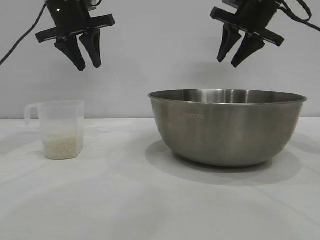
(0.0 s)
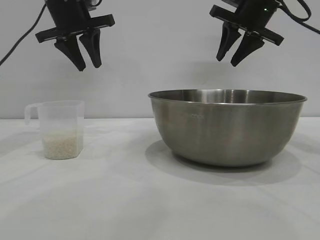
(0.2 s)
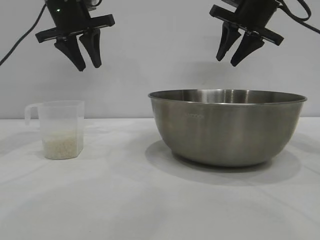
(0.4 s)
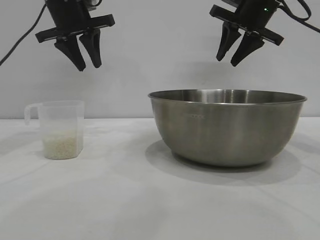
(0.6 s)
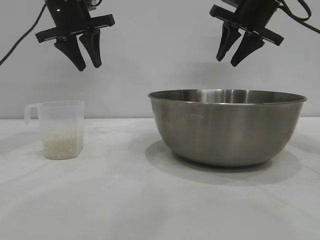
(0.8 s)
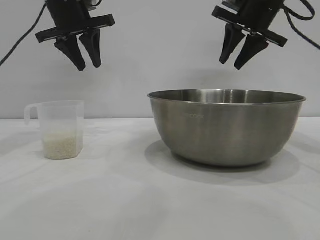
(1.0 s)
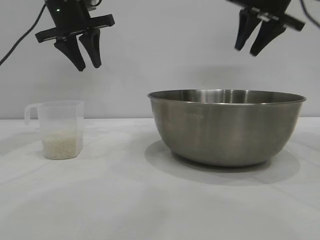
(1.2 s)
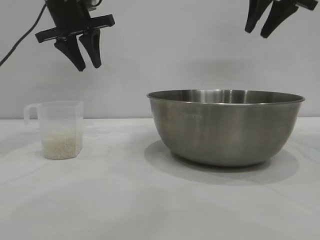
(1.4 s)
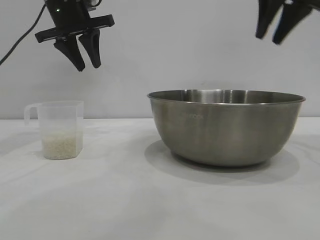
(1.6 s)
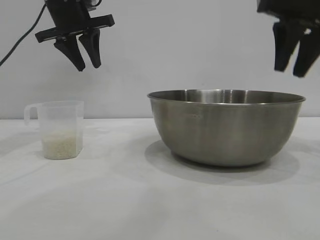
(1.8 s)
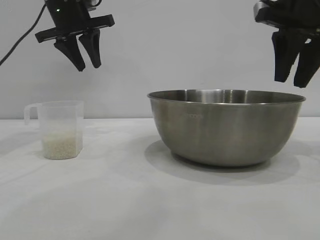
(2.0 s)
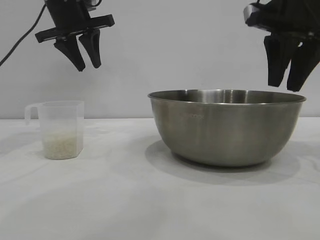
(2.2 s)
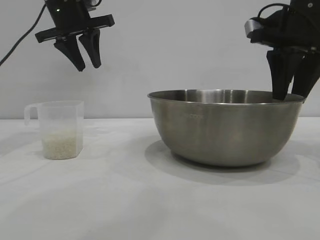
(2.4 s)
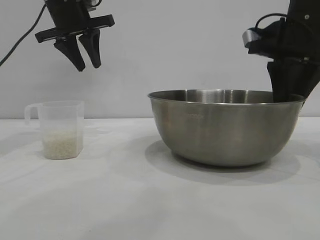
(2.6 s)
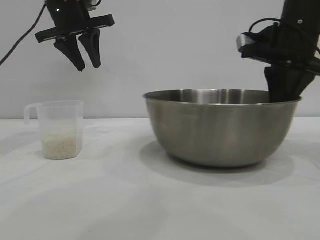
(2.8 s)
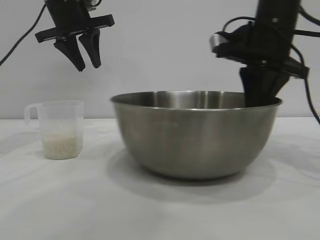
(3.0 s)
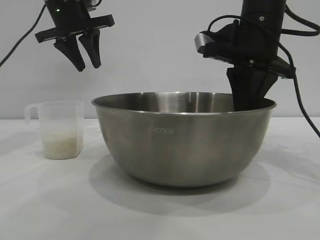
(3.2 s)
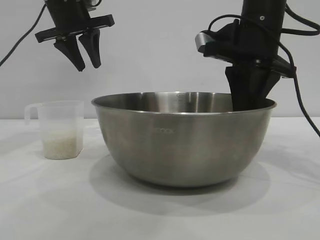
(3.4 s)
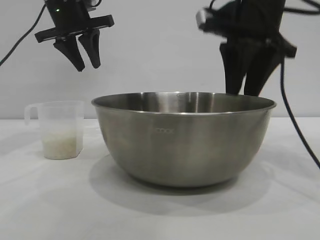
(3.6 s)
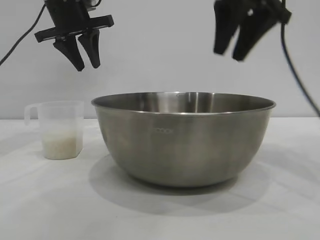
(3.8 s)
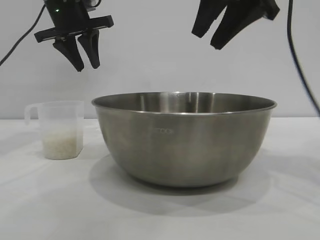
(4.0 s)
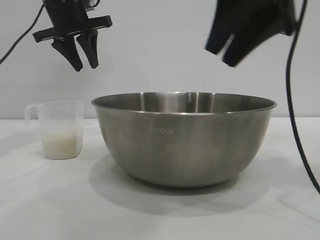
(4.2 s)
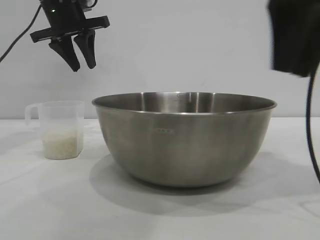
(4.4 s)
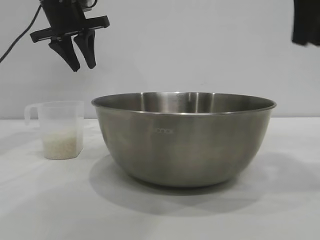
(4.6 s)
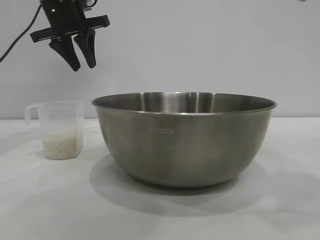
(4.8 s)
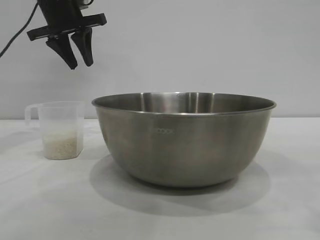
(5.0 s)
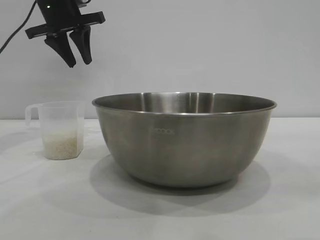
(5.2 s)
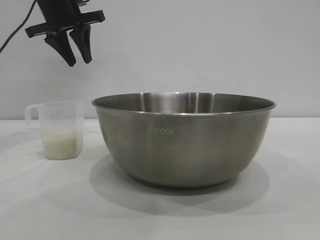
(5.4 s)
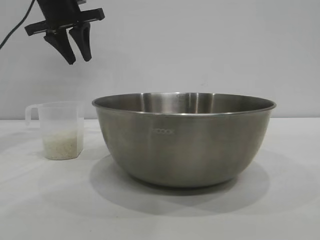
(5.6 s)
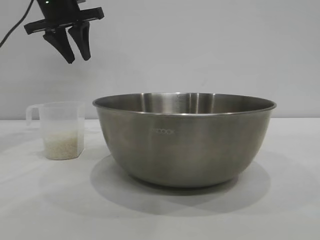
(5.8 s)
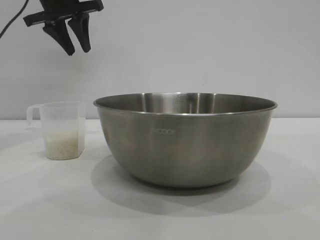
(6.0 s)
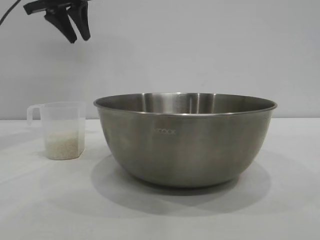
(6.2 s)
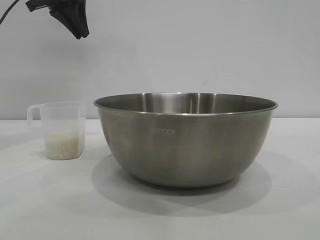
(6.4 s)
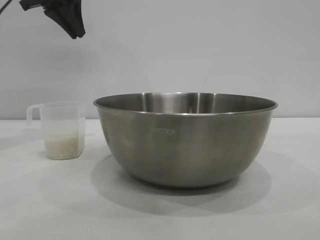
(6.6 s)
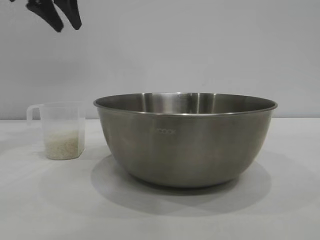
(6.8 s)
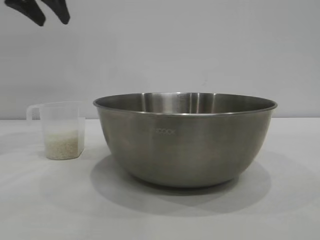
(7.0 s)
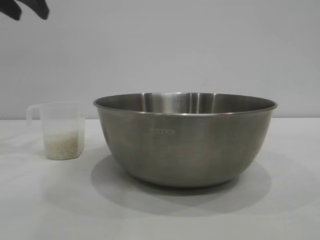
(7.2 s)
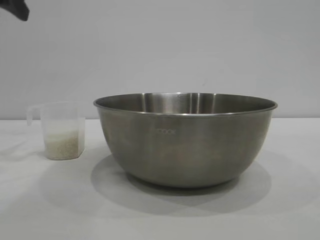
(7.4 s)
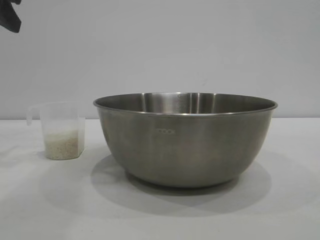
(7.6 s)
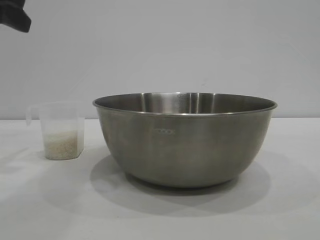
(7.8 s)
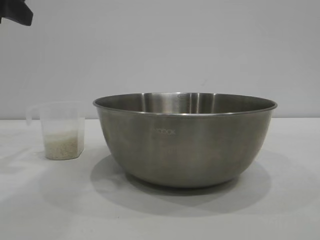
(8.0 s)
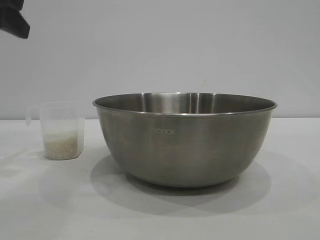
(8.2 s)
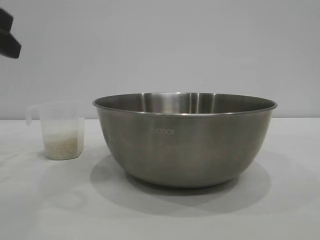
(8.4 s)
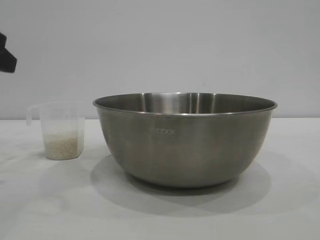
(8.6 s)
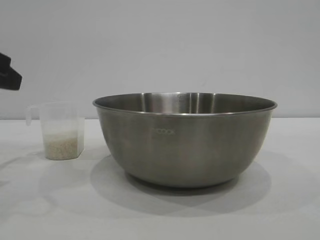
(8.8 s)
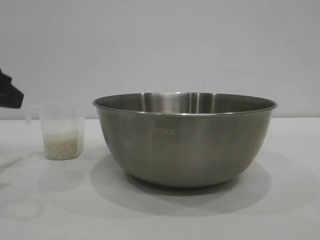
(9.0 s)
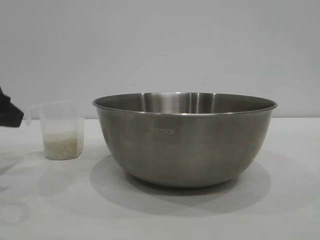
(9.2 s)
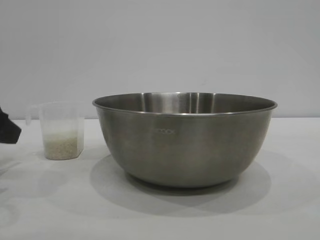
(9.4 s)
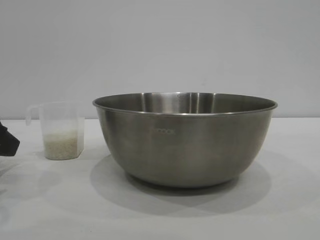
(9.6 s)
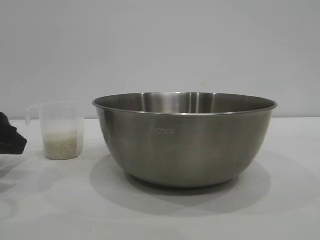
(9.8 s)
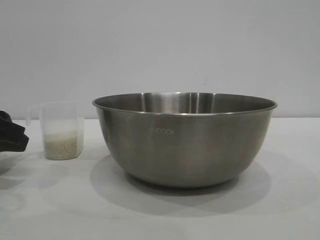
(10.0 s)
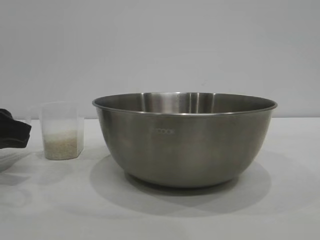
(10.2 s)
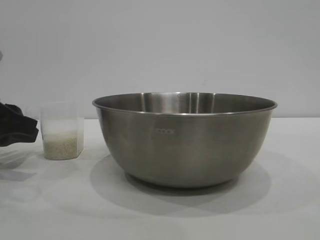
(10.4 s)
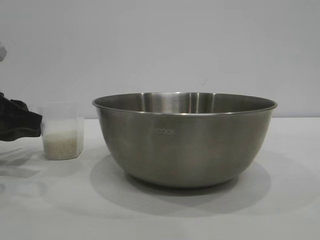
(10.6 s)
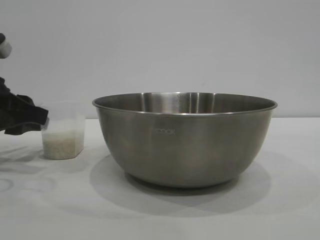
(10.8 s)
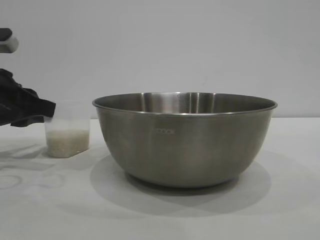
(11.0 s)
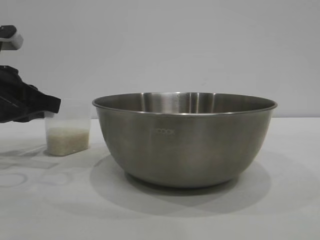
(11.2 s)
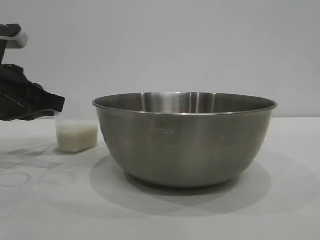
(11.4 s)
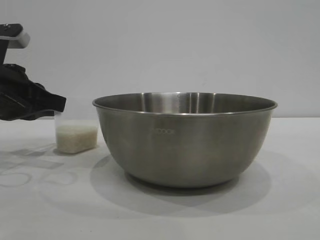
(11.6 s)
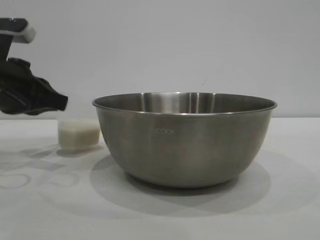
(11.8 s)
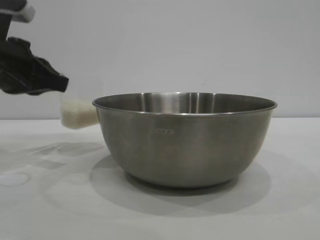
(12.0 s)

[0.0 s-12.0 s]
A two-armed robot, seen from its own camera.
Task of the whole recording: the right gripper grasp the rice container and place it in the center of the table, the left gripper grasp the rice scoop and pour the rice into the rice container.
Step, 0.0 to 3.6 s: Move the bowl to the center of view with the right gripper.

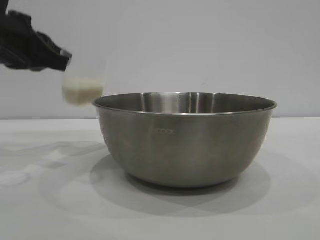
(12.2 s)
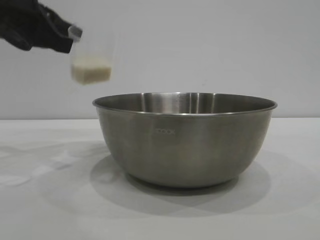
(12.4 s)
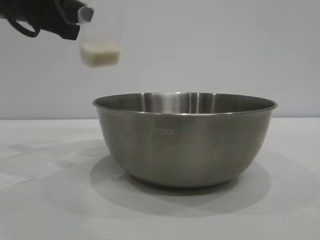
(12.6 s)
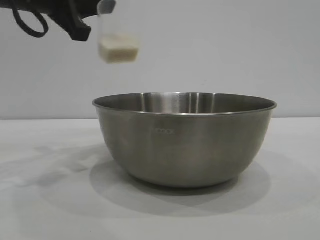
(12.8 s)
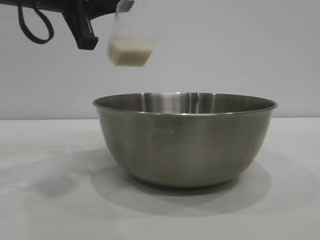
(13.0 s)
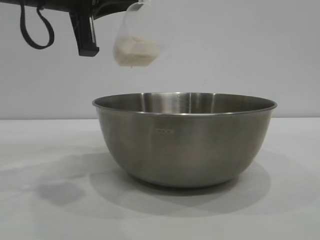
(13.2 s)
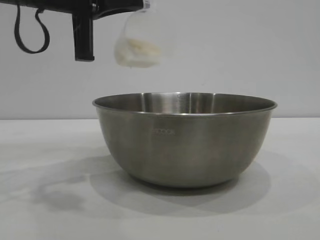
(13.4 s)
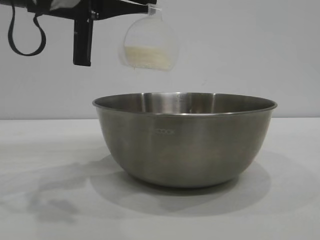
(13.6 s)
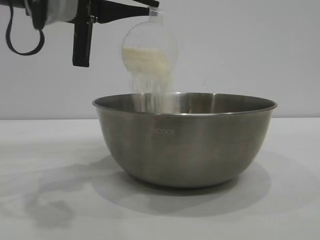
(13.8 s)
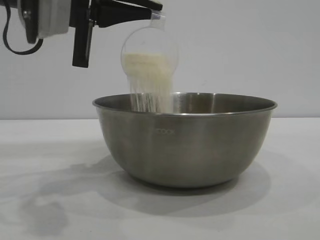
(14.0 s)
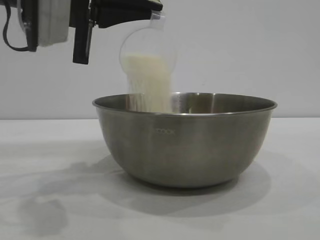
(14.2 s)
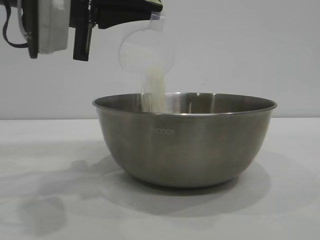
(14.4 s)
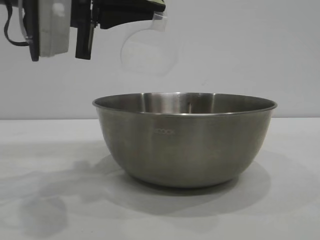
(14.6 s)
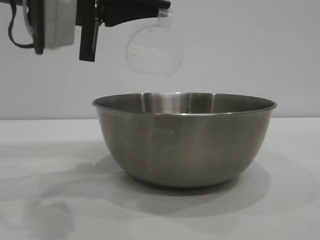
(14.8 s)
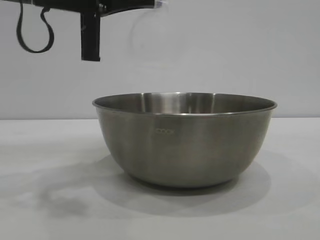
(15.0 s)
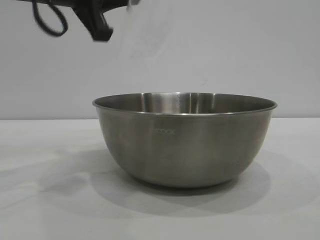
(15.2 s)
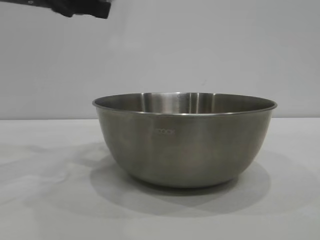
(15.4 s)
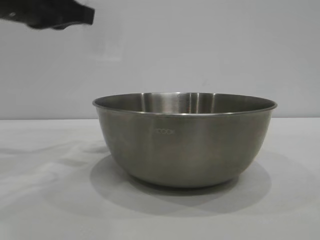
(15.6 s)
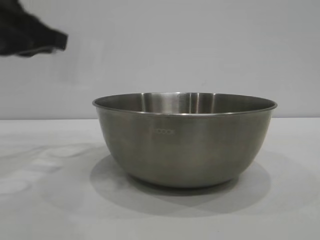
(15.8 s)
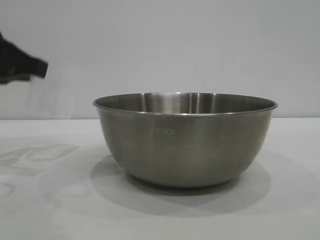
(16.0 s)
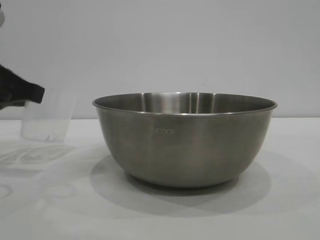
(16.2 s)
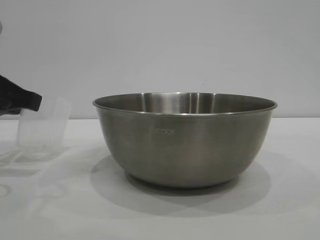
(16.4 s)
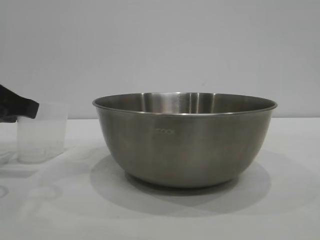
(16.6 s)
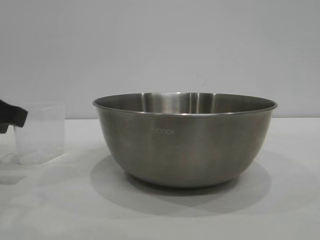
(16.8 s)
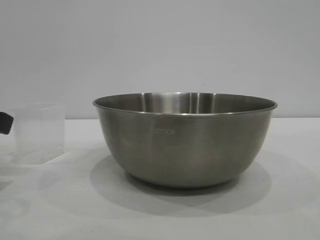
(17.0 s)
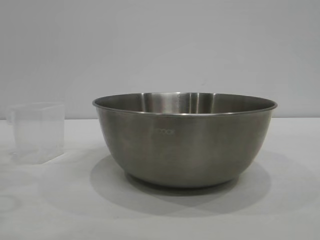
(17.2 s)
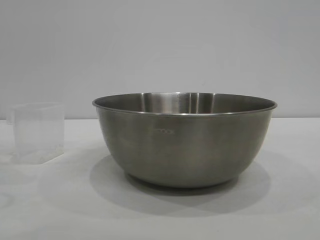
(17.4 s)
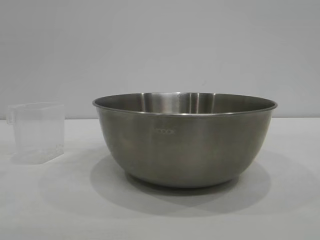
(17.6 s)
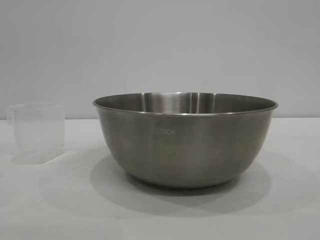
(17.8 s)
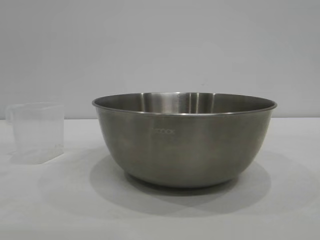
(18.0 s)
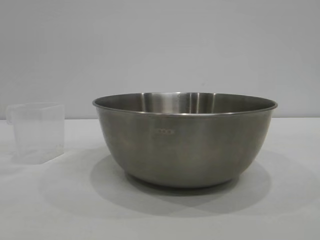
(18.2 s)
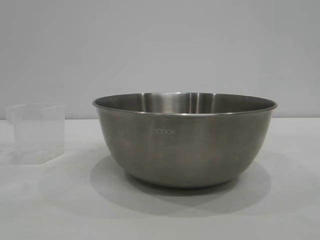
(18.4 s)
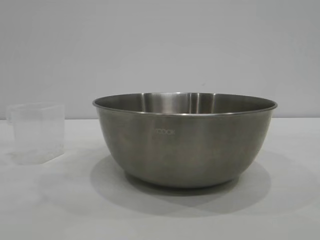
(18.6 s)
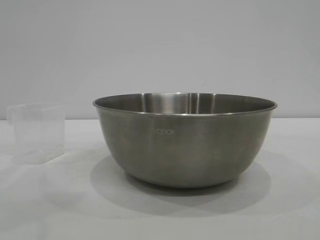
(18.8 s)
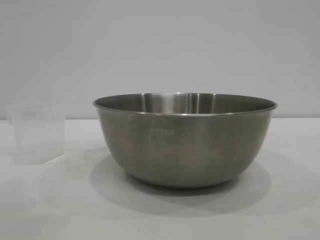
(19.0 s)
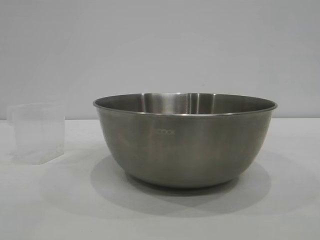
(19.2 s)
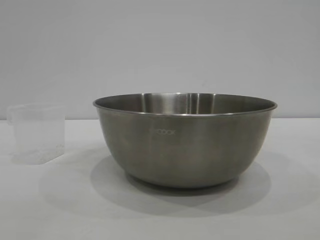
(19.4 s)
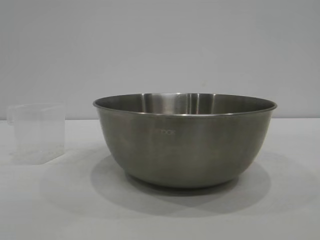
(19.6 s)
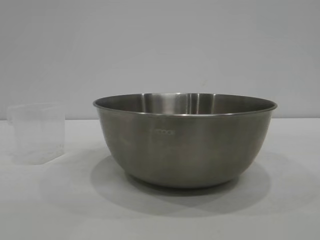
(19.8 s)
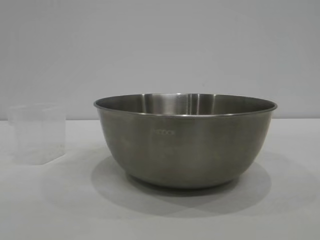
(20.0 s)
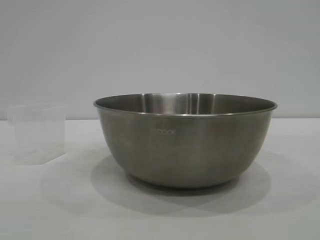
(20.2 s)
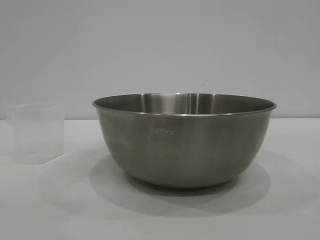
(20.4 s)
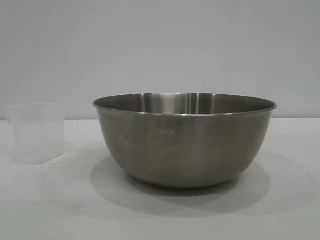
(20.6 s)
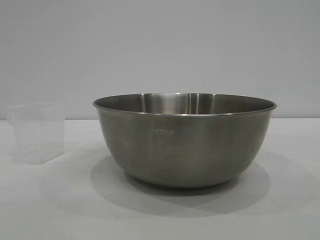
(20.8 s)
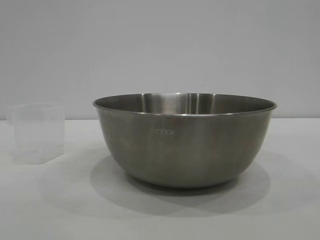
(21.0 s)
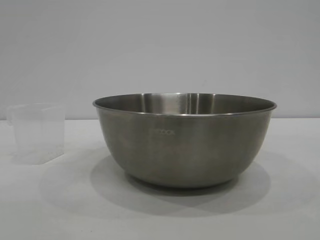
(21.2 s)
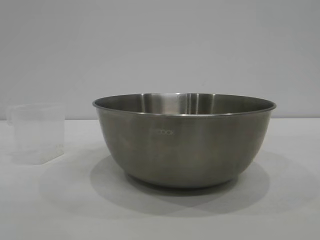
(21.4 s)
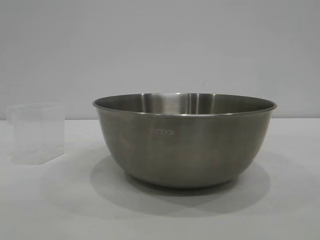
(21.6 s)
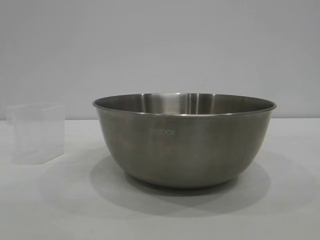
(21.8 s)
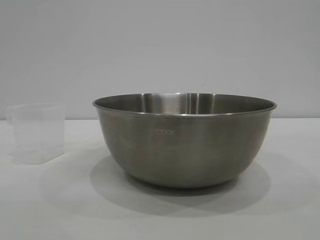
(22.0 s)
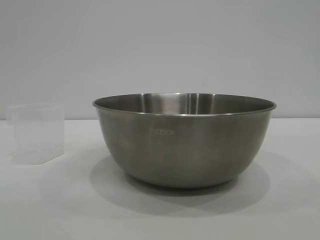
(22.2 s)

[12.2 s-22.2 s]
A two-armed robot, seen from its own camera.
Task of the whole recording: the right gripper grasp the rice container and place it in the center of the table, the left gripper grasp the rice scoop and pour the rice into the rice container.
Step, 12.2 to 14.4 s: Pour the rice from the cup into the bowl with the left gripper.
Step, 14.6 to 17.0 s: Place the cup on the table with the left gripper.
